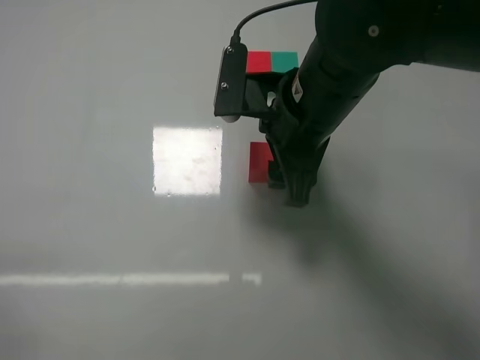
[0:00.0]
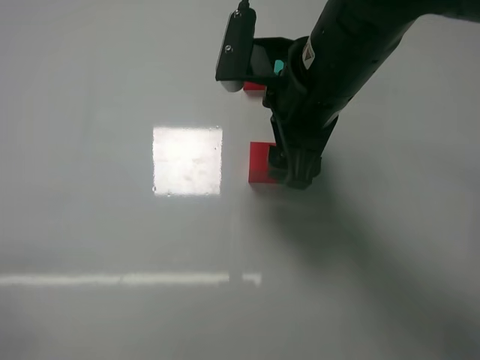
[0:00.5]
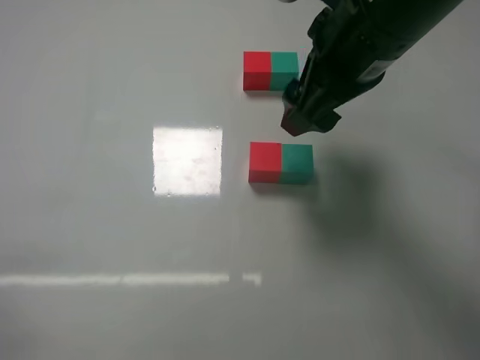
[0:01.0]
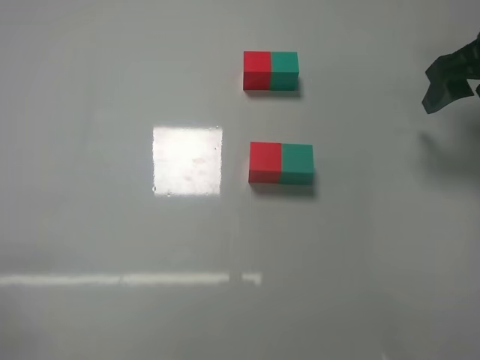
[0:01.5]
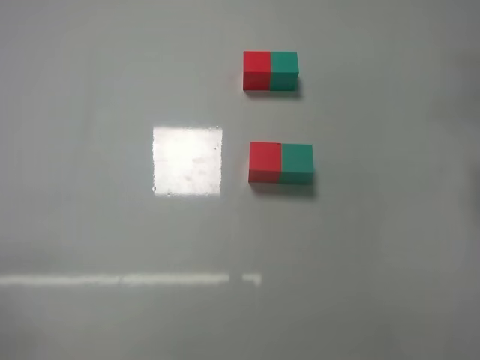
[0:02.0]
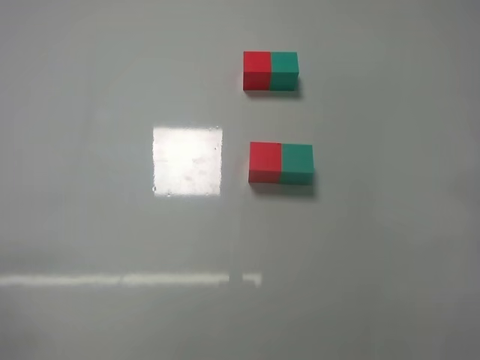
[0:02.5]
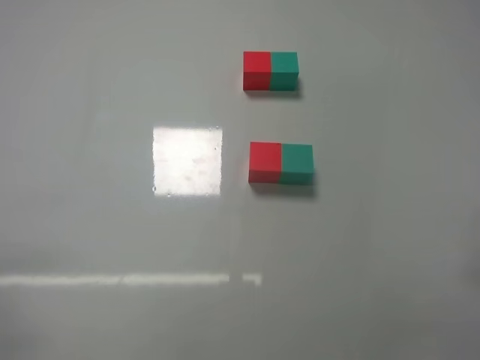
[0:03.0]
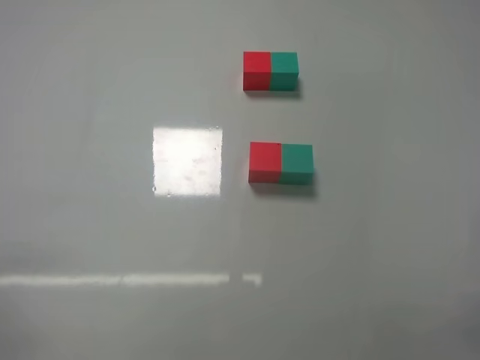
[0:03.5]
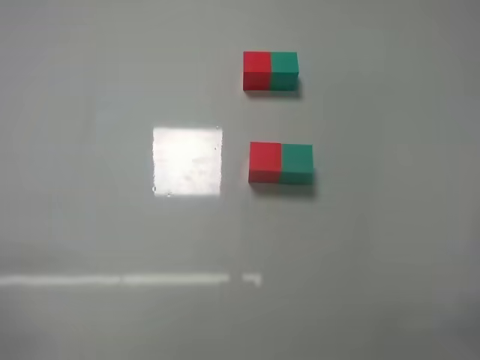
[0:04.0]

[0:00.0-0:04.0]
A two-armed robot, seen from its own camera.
Task of the whole recording: According to the building block template in front, assemble the scattered blocks together.
0:00.0 to 0:02.0: The right gripper travels to the right by approximately 25 cm.

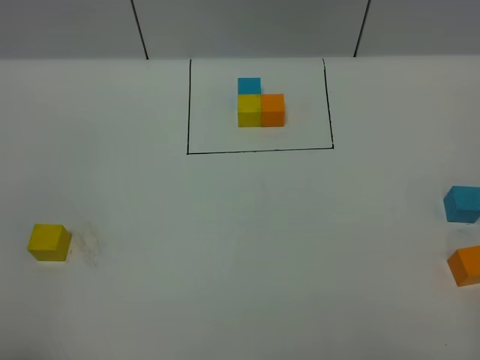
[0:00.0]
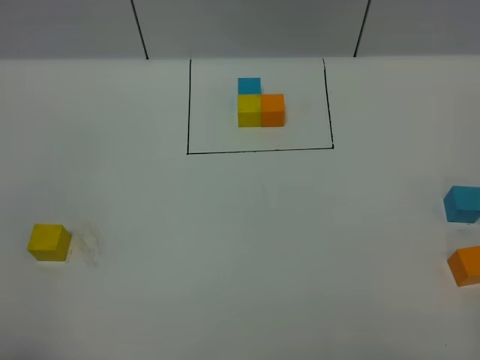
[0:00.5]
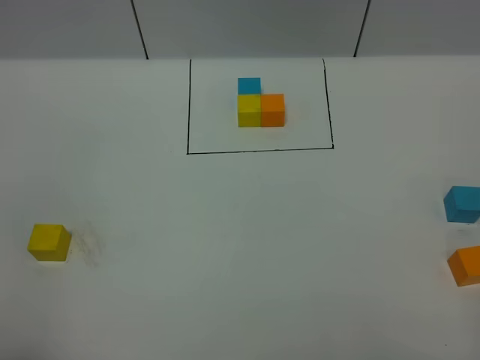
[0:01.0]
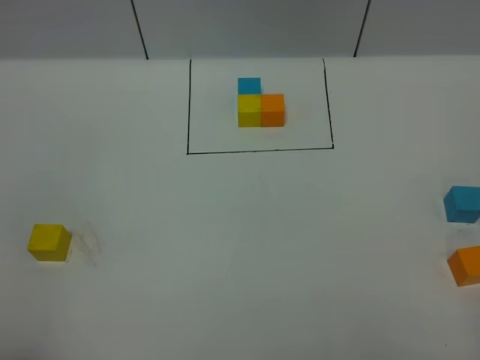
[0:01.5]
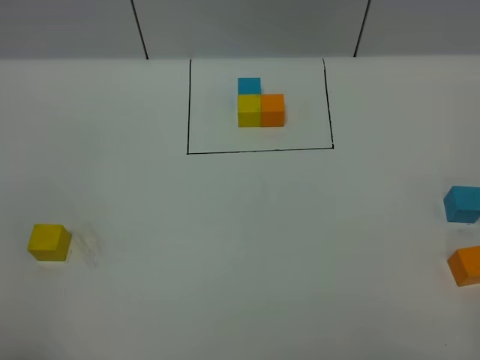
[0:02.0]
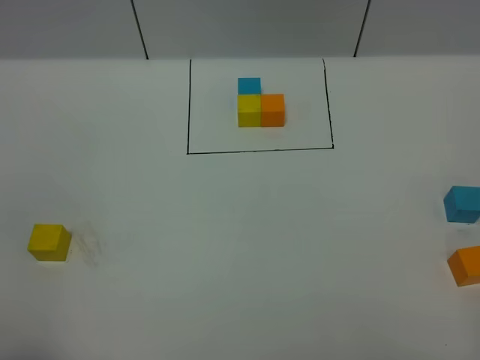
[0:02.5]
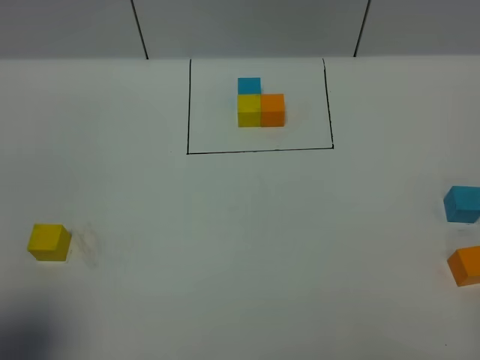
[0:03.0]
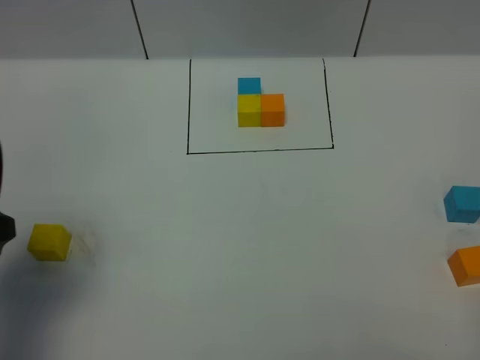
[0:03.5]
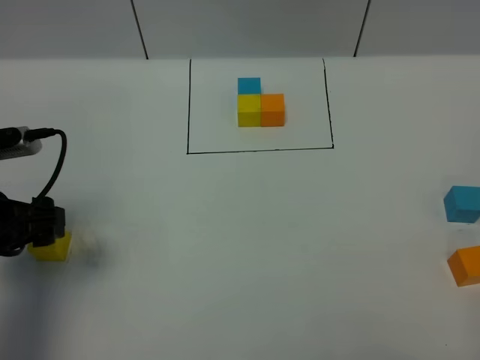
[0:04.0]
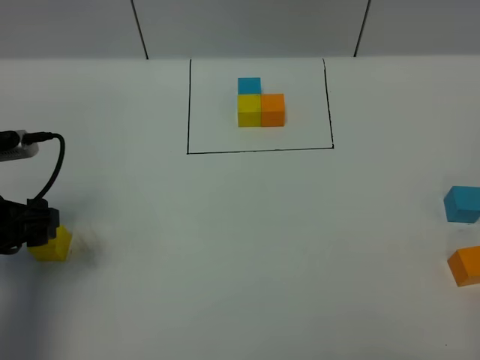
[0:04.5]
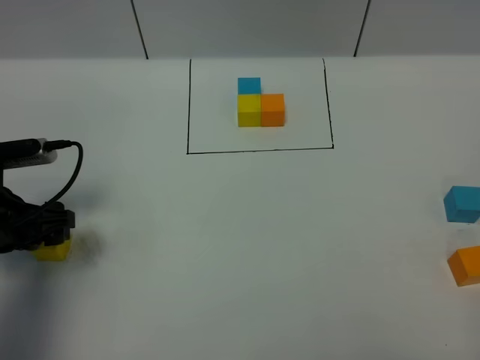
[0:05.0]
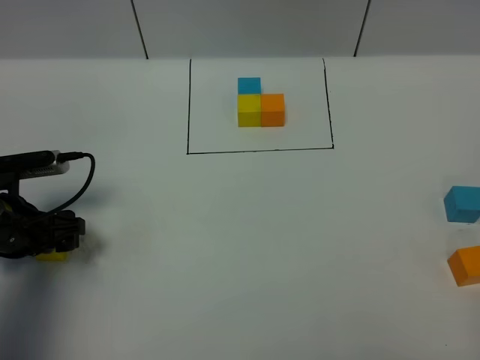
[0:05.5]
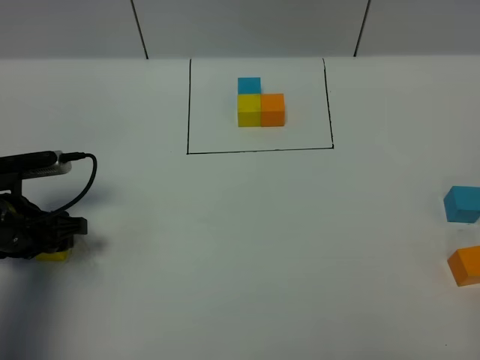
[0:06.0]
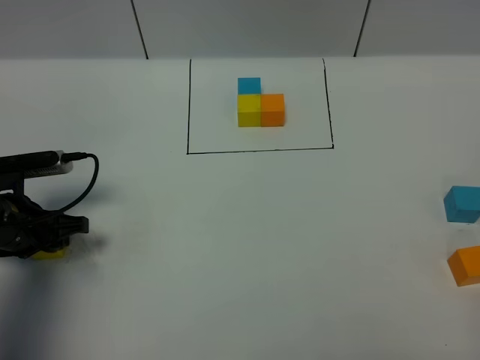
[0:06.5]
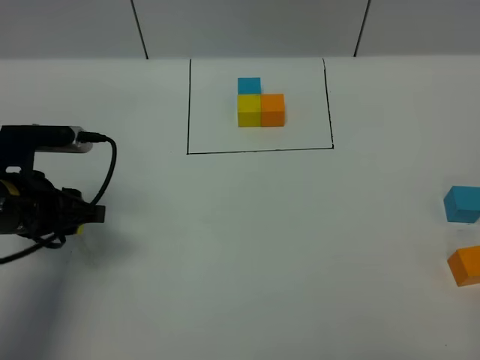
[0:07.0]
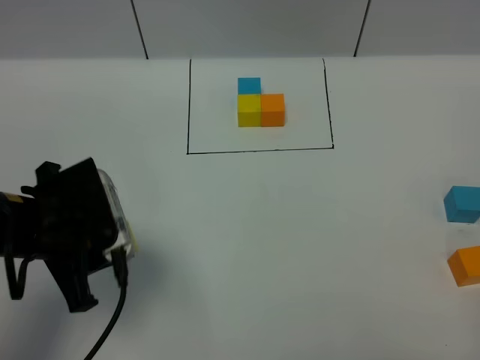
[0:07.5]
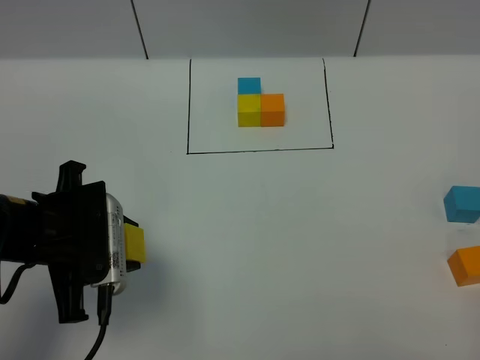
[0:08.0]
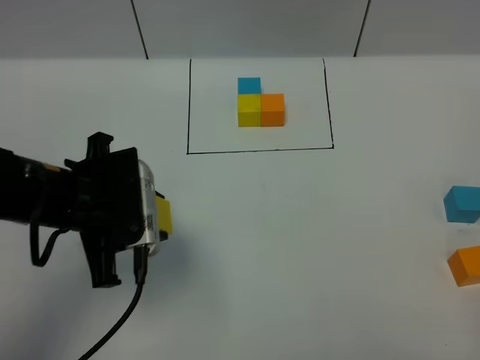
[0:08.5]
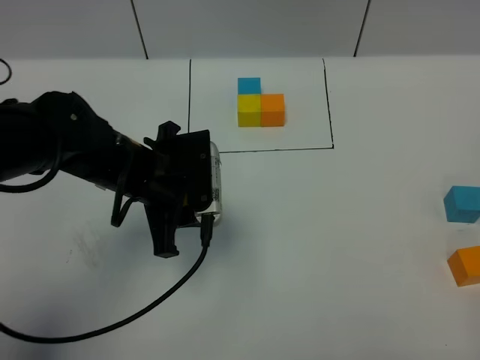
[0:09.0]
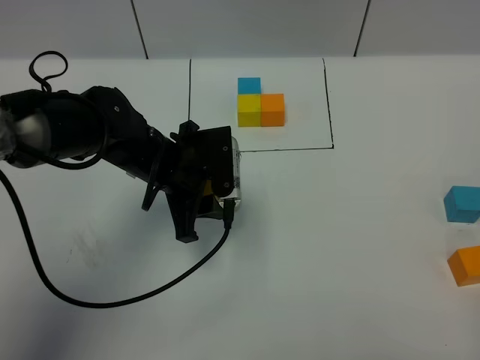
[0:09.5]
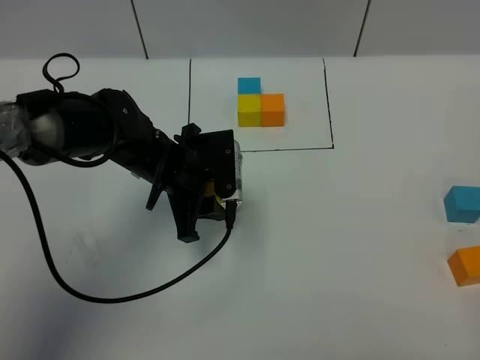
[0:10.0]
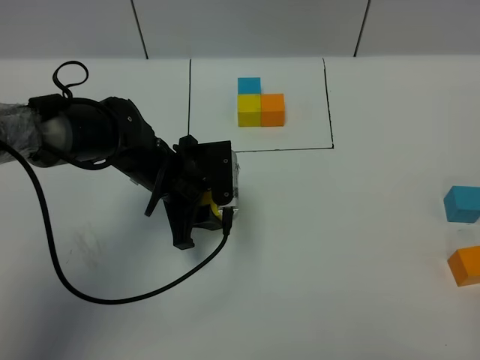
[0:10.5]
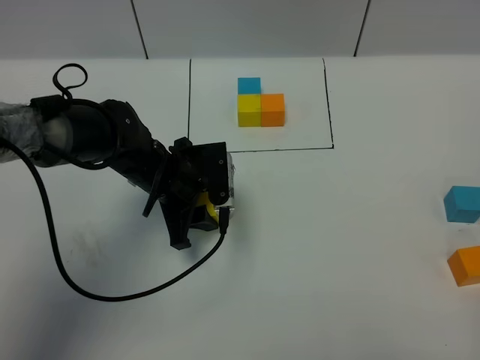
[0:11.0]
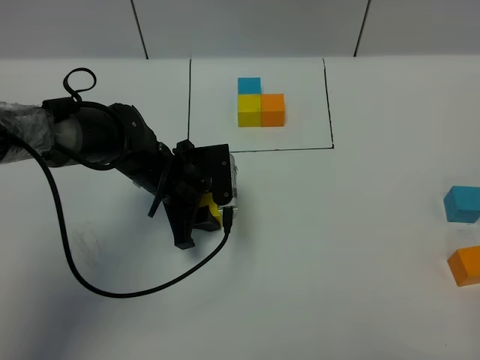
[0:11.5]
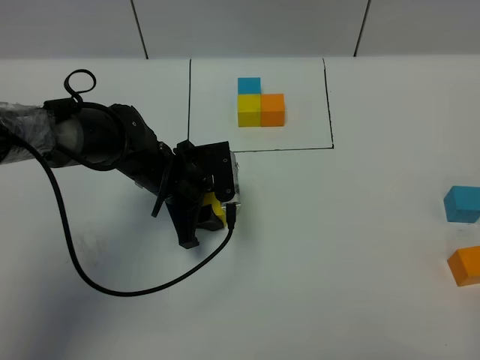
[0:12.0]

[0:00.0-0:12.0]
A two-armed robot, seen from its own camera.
Task of the whole recording: According to the building block template in front, assemble the scattered blocks together.
0:00.0 to 0:02.0: The two grippers keep their place.
0:02.0 to 0:04.0: The left gripper heads forward, covering some 25 cm, and opens.
0:04.0 to 0:06.0: The left gripper travels downward by approximately 10 cm.
0:06.0 to 0:08.0: The left gripper moves upward, to the right and backward, roughly 15 cm.
0:08.0 to 0:10.0: The left gripper shifts some 20 cm forward, to the right and downward.
0:10.0 to 0:12.0: The grippers stay close to where they were, moving slightly.

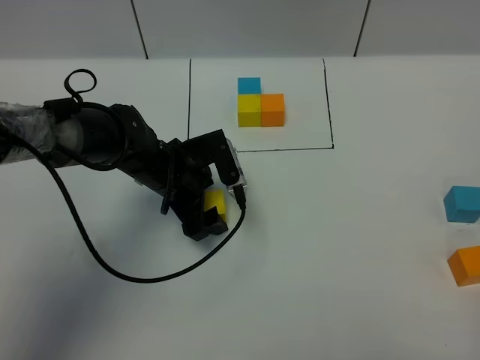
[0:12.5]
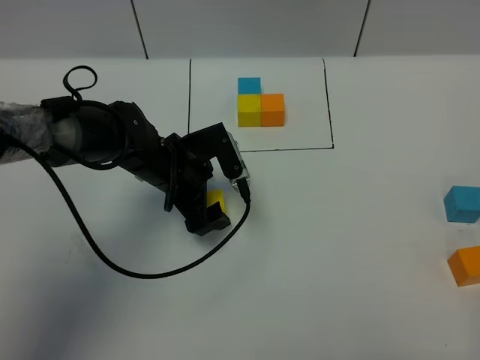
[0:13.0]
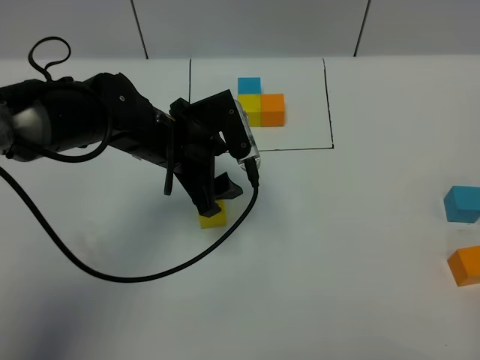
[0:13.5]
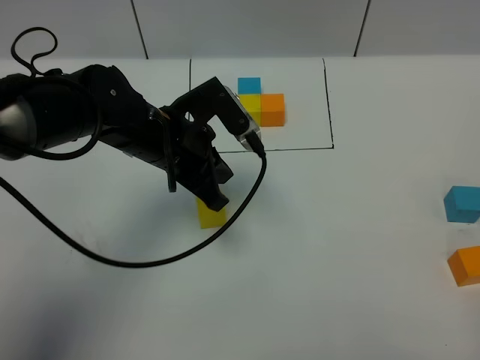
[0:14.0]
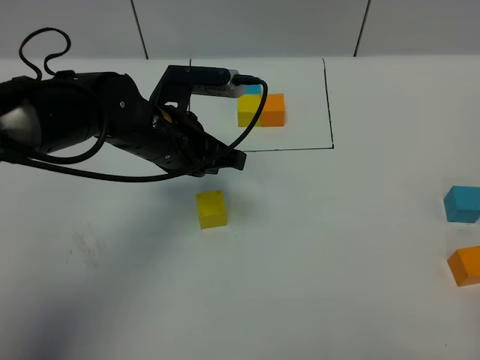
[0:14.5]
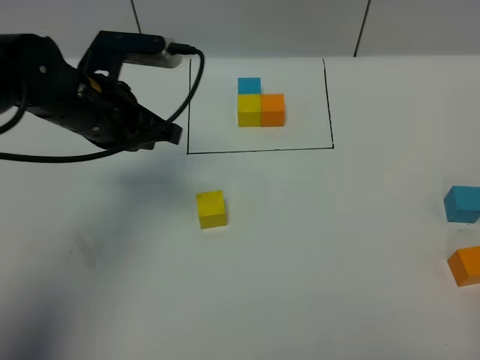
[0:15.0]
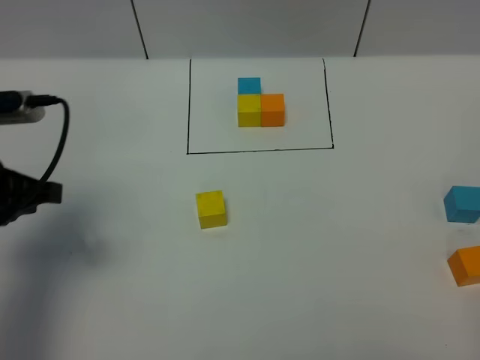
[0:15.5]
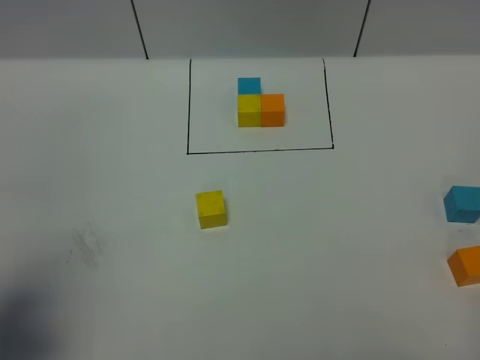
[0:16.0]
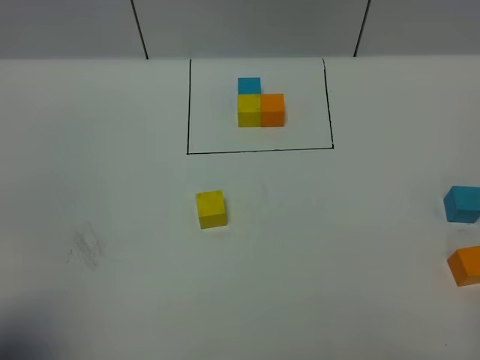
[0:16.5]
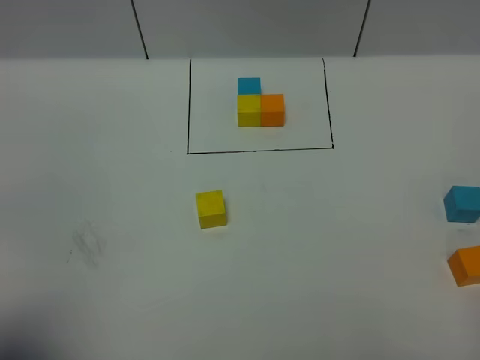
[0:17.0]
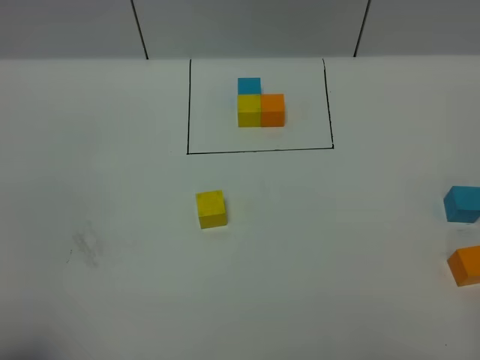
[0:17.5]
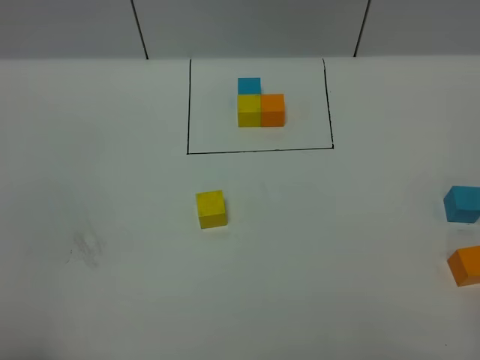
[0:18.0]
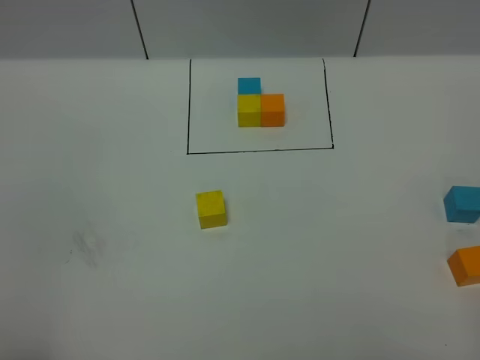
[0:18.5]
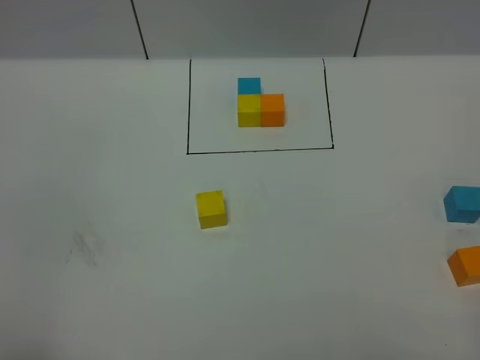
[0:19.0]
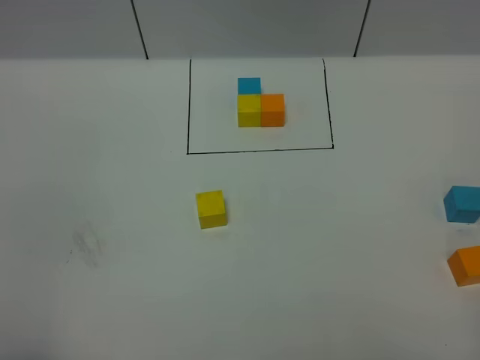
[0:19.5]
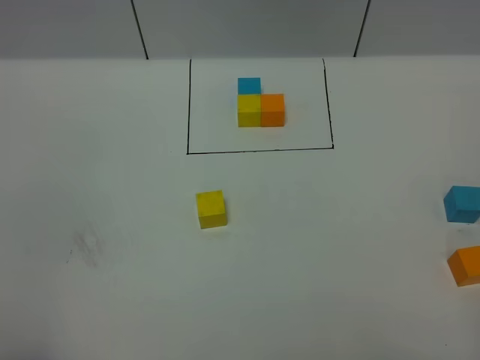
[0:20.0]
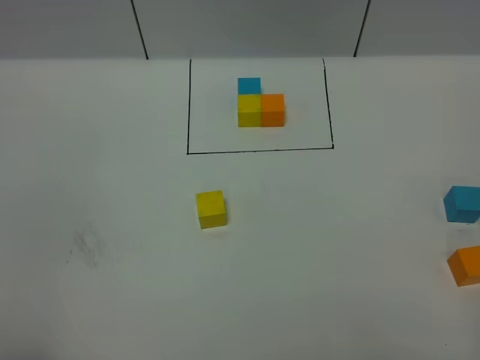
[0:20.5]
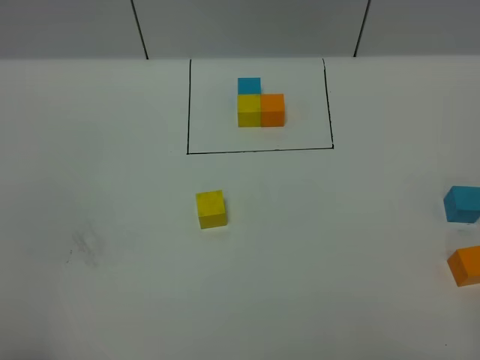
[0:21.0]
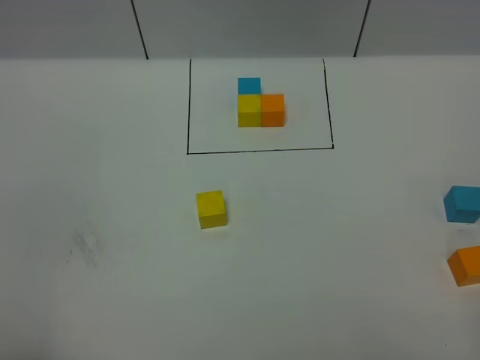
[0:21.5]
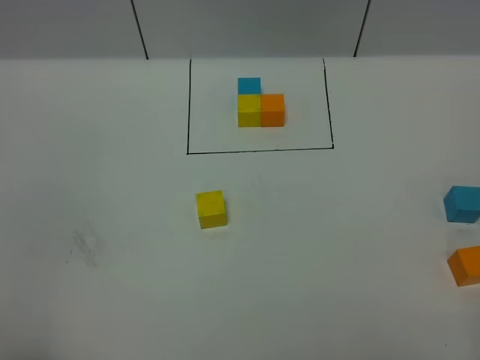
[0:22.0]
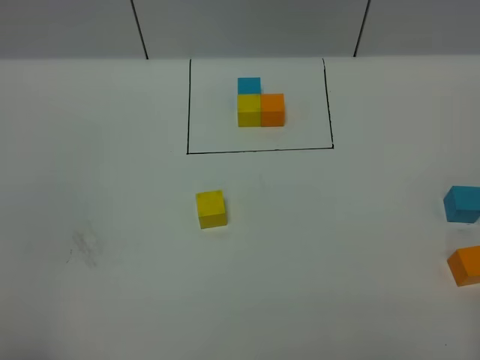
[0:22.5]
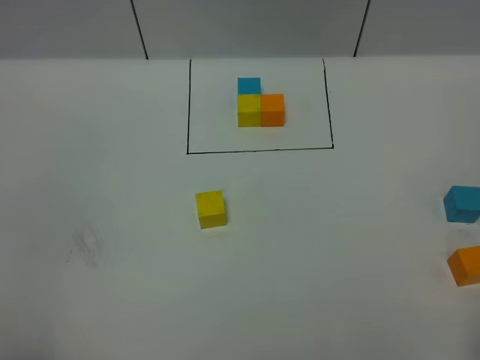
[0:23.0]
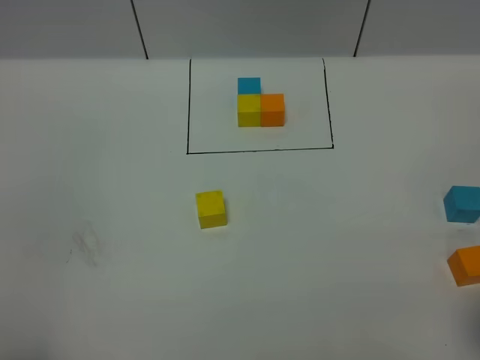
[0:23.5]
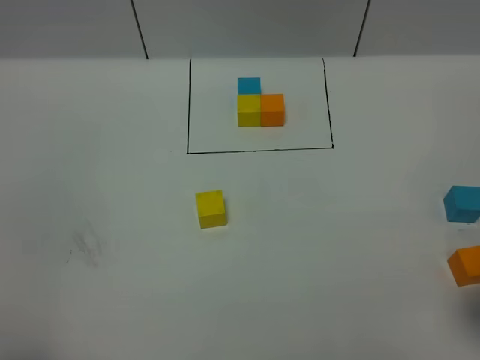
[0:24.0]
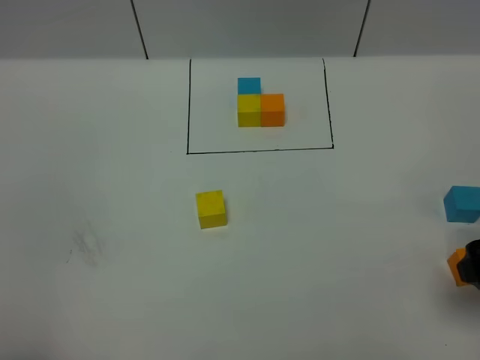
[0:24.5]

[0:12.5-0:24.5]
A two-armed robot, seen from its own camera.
Task of the whole recording: According to the building block template in front, assemble the scattered blocks together.
0:12.5 to 0:14.5: The left gripper heads upward, covering some 10 cm, and closes.
0:14.5 to 0:16.5: The left gripper moves backward and to the left, approximately 35 cm.
0:16.5 to 0:18.5: The left gripper heads backward, covering approximately 5 cm.
0:18.5 to 0:20.5: Both grippers stay about where they are.
0:22.5 to 0:24.5: The right gripper is displaced forward and downward by approximately 20 cm.
